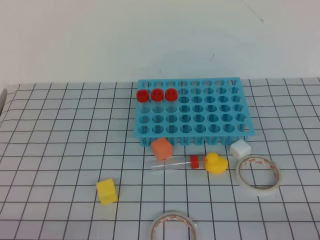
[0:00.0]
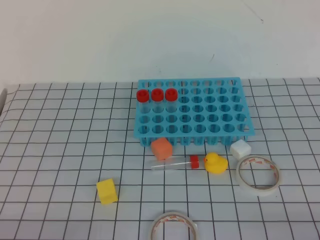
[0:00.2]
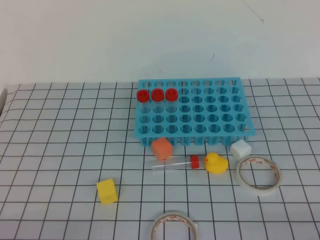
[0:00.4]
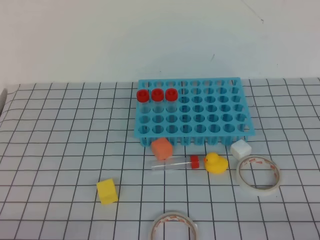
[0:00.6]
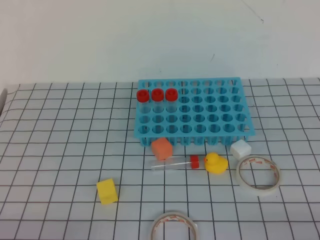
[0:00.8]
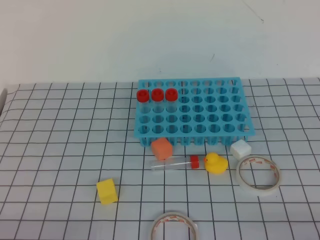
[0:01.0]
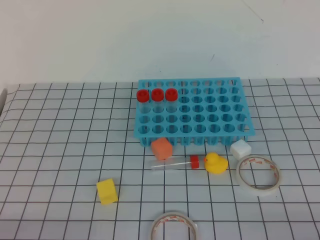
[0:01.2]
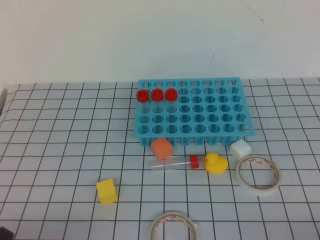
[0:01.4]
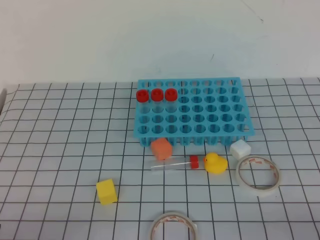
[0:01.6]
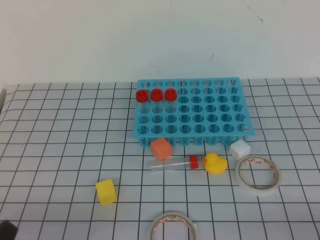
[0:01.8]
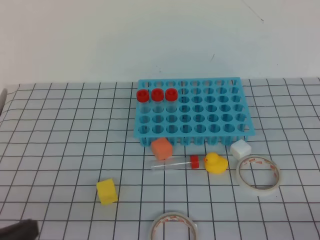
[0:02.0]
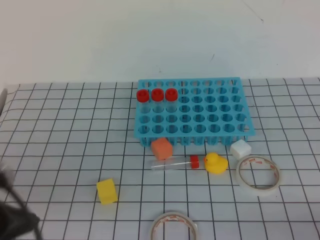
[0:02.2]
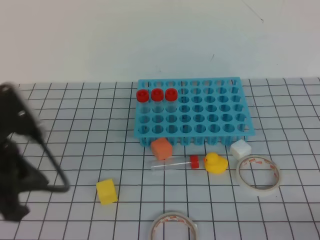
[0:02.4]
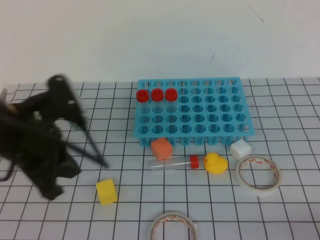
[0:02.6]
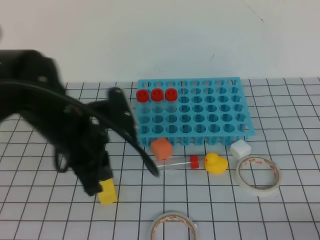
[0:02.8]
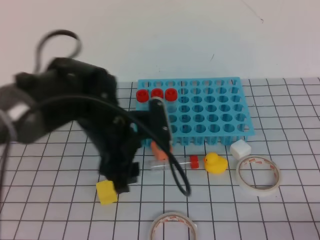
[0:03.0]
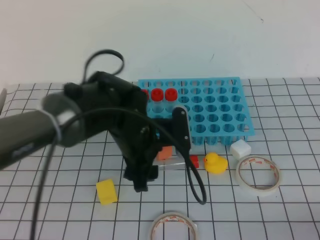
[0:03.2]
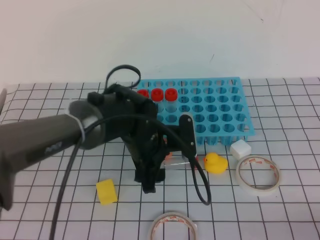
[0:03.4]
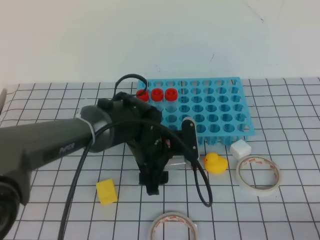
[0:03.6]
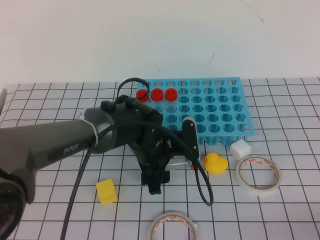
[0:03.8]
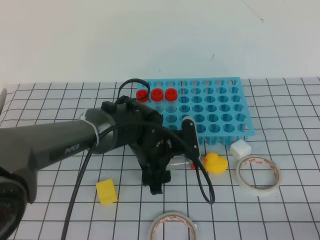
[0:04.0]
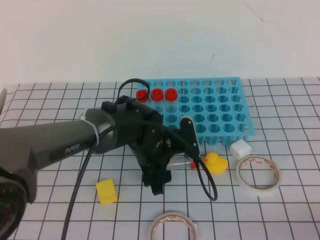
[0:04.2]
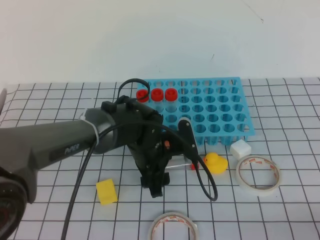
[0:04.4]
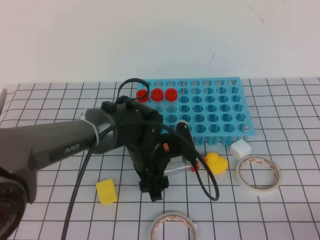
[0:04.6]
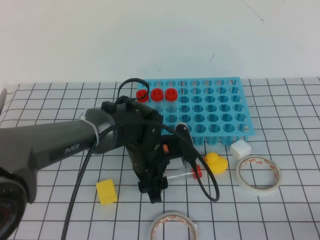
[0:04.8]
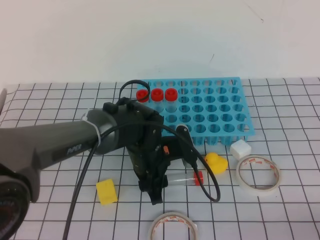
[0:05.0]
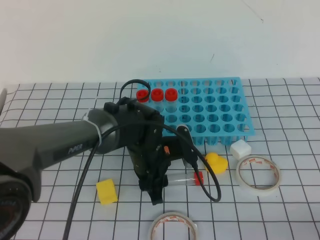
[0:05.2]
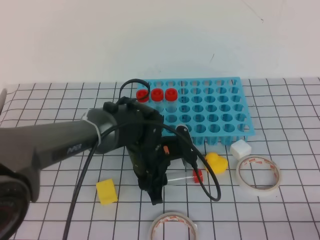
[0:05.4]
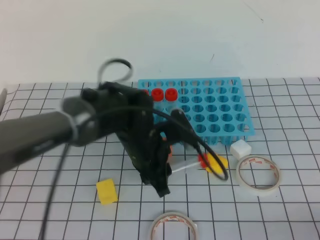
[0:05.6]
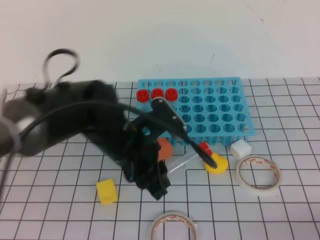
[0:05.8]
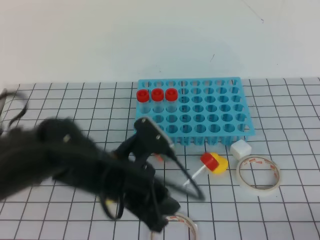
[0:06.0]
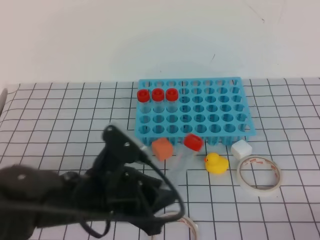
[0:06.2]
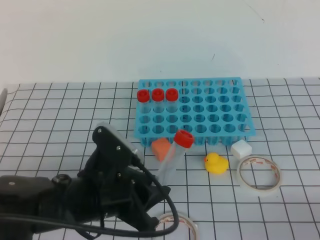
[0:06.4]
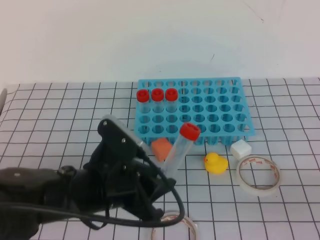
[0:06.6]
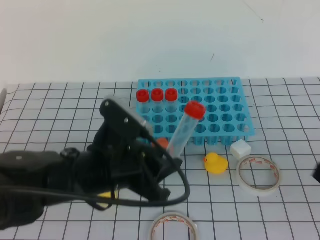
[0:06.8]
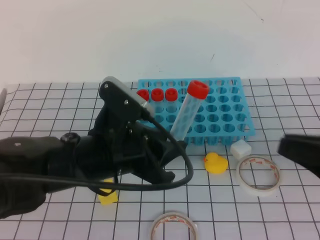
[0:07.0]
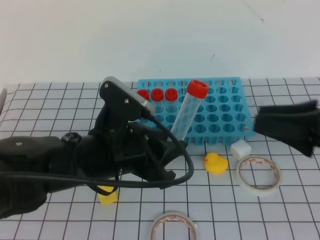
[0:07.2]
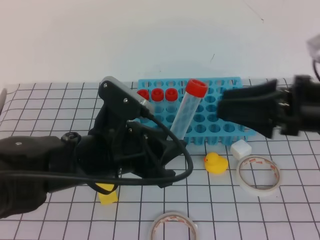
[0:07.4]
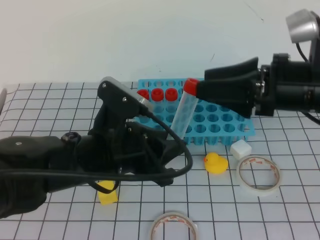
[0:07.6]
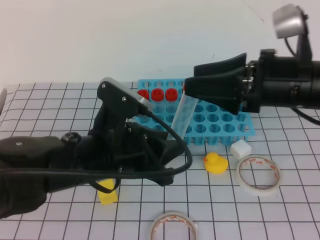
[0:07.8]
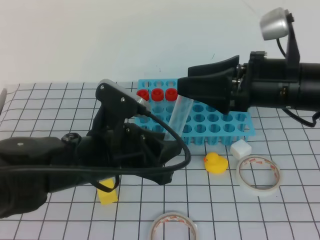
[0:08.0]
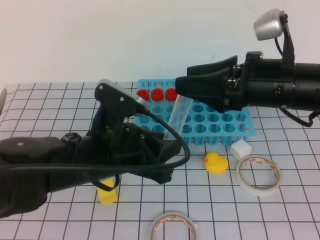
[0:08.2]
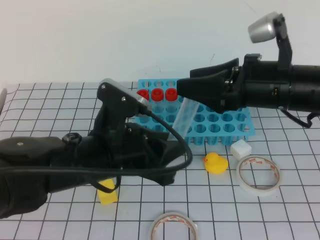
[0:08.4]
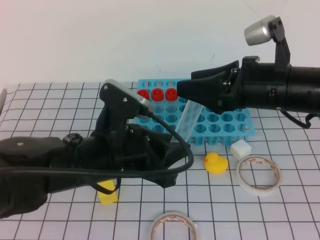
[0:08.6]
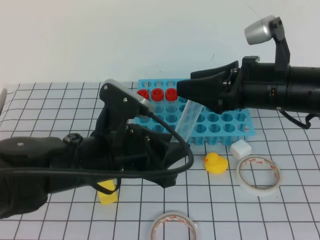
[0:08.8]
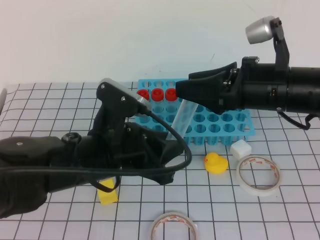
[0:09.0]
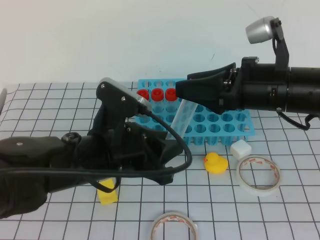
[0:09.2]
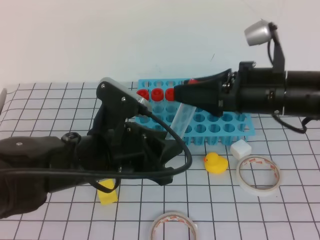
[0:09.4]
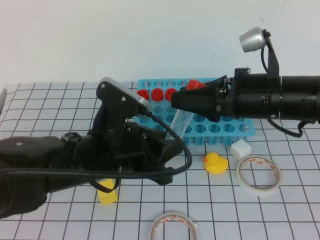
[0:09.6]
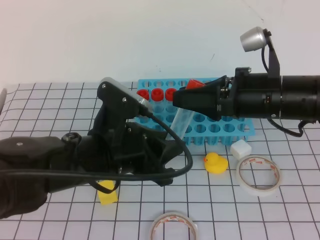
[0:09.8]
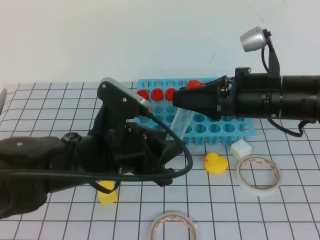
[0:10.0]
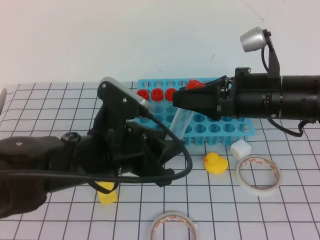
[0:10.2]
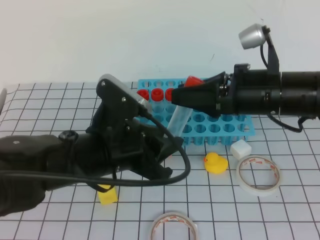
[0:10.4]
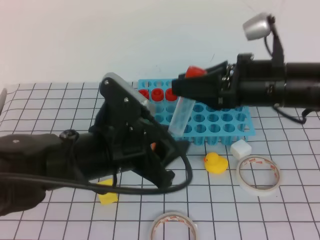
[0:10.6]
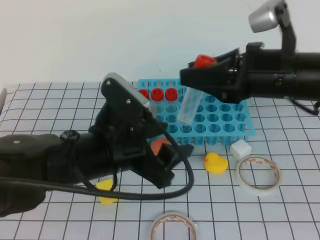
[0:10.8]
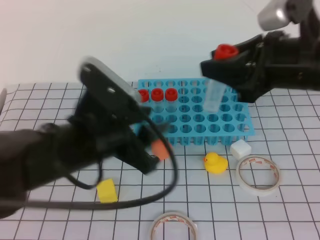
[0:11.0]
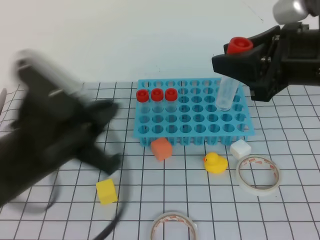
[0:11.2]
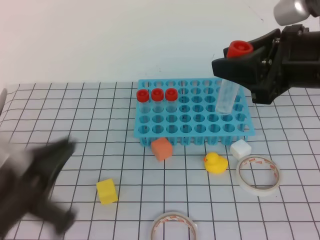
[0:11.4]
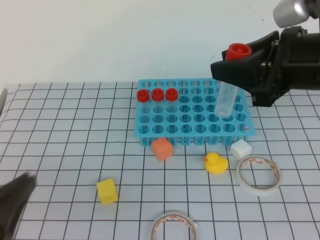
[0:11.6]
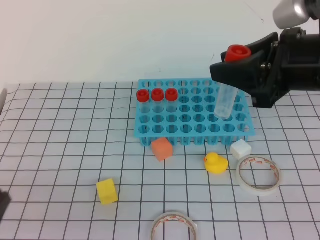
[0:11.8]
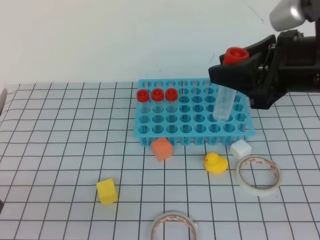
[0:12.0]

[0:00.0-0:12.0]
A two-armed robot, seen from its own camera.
0:01.6 to 0:03.0: The left gripper is displaced forward and to the right by some 25 cm, and opens.
0:03.0 to 0:04.4: The left gripper is displaced downward, to the right and forward by roughly 15 cm, and opens.
0:04.4 to 0:06.0: The left gripper is displaced backward and upward by roughly 10 cm, and closes its fingers.
0:06.0 to 0:07.6: The left gripper shifts by some 5 cm, while the right gripper moves forward, upward and to the left, roughly 30 cm, and opens up.
0:07.6 to 0:09.0: The right gripper shifts by roughly 5 cm.
0:09.0 to 0:10.4: The right gripper closes its fingers.
0:10.4 to 0:12.0: The right gripper moves upward, about 10 cm; the left gripper shifts approximately 25 cm backward and to the left, and closes up.

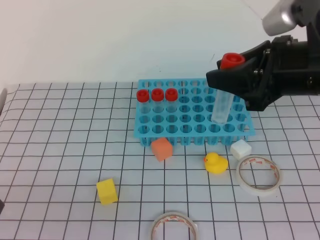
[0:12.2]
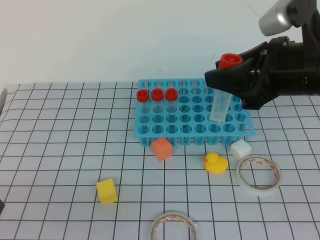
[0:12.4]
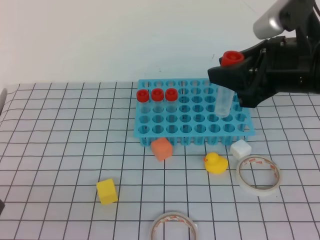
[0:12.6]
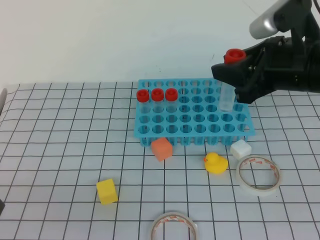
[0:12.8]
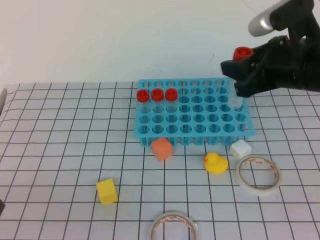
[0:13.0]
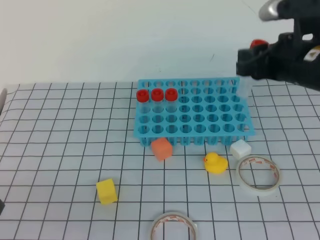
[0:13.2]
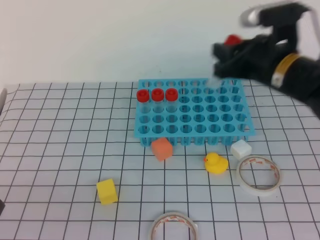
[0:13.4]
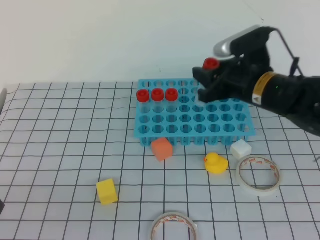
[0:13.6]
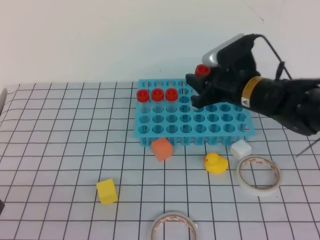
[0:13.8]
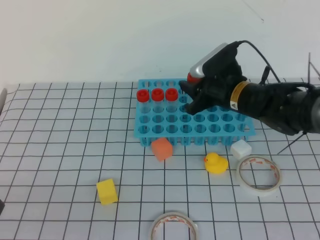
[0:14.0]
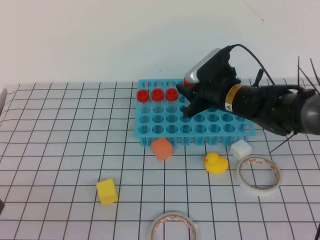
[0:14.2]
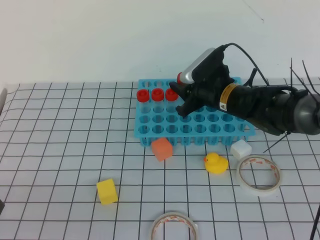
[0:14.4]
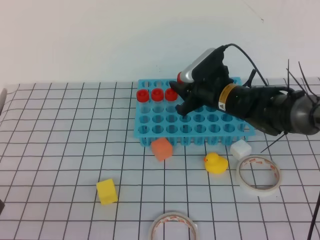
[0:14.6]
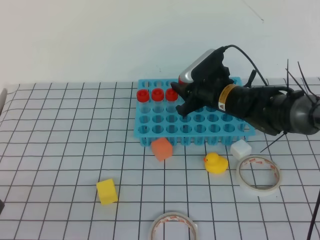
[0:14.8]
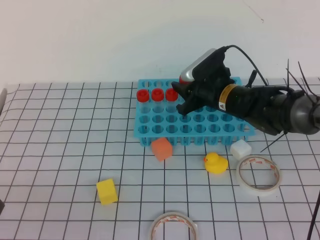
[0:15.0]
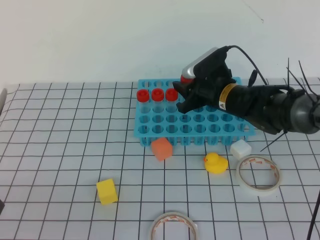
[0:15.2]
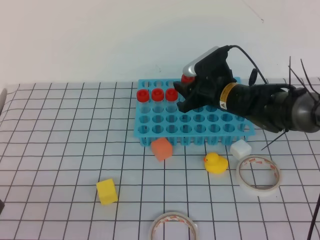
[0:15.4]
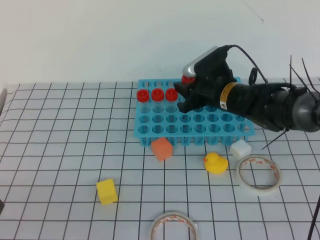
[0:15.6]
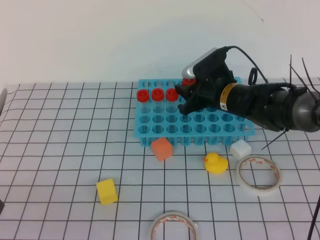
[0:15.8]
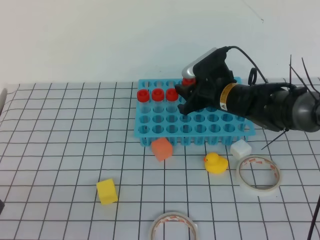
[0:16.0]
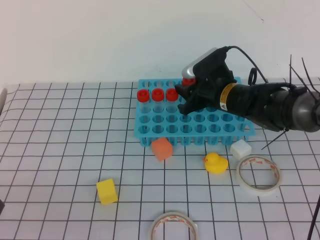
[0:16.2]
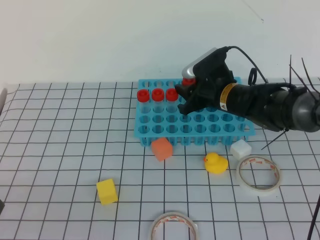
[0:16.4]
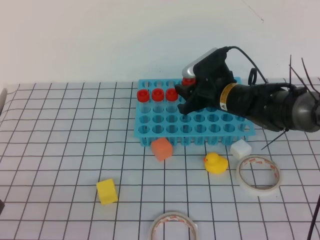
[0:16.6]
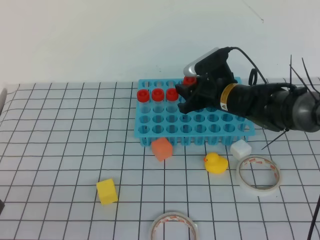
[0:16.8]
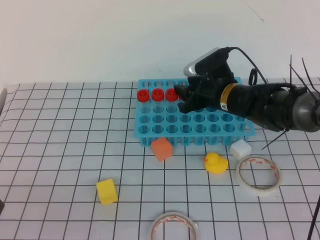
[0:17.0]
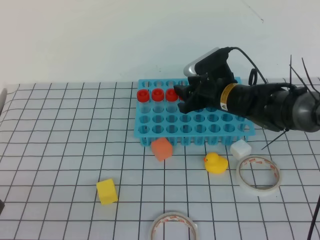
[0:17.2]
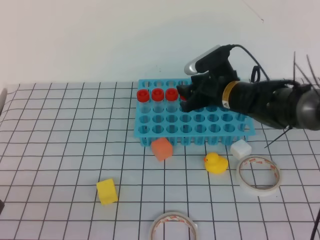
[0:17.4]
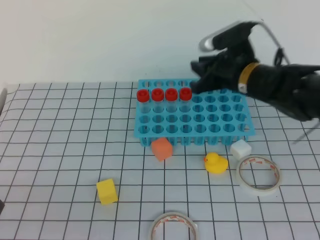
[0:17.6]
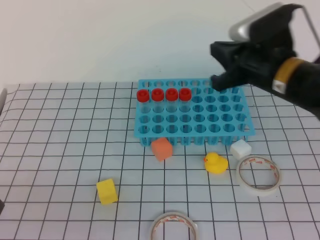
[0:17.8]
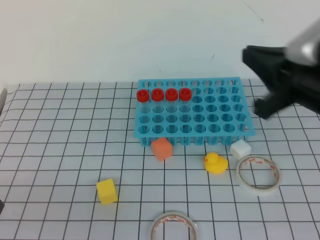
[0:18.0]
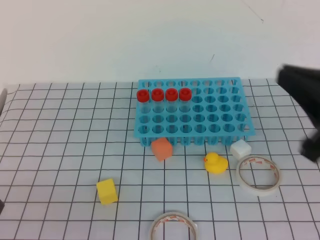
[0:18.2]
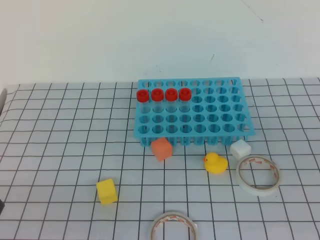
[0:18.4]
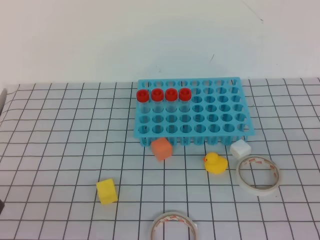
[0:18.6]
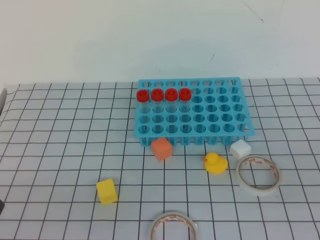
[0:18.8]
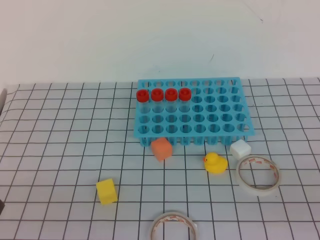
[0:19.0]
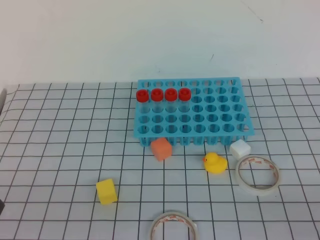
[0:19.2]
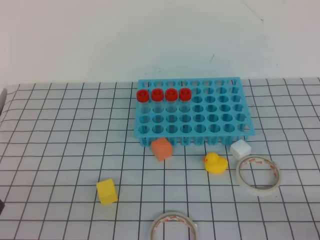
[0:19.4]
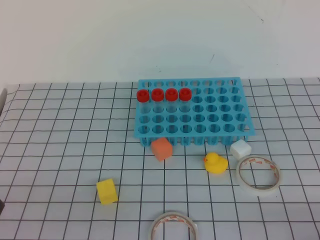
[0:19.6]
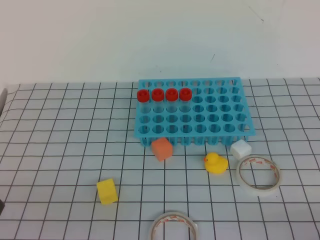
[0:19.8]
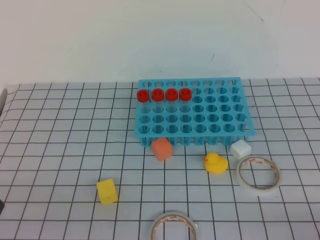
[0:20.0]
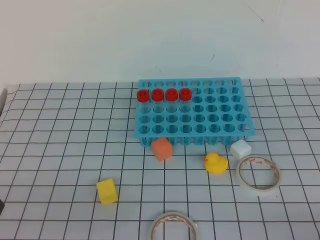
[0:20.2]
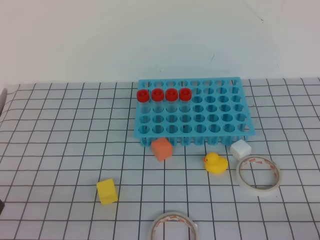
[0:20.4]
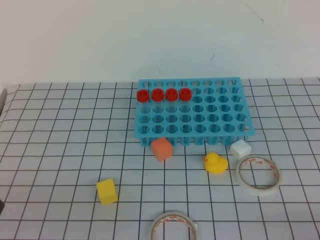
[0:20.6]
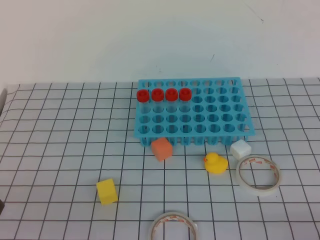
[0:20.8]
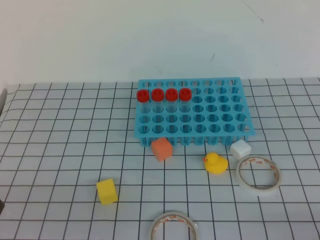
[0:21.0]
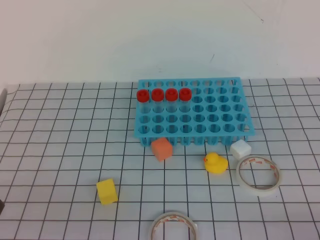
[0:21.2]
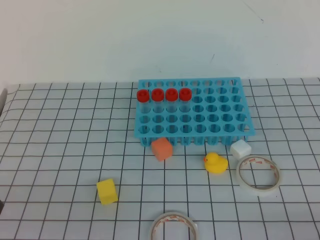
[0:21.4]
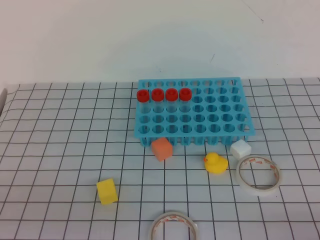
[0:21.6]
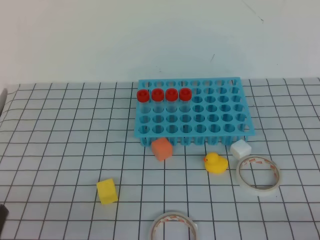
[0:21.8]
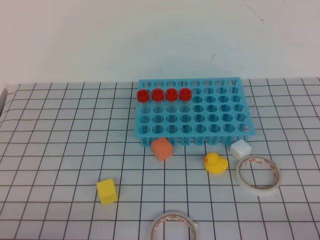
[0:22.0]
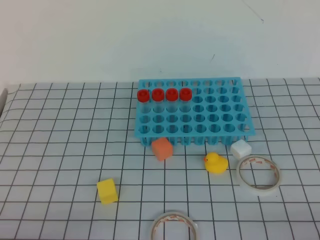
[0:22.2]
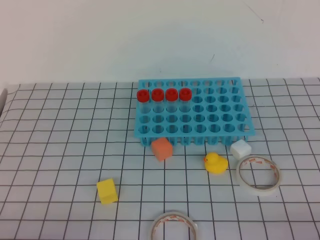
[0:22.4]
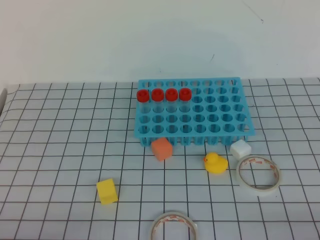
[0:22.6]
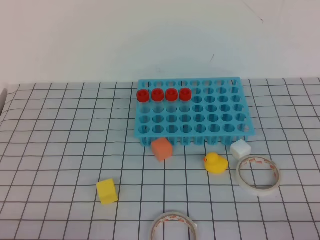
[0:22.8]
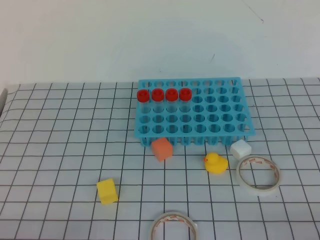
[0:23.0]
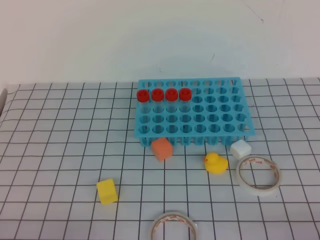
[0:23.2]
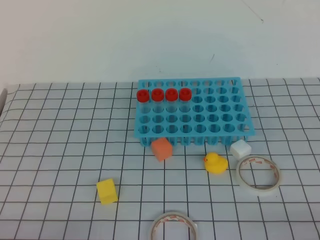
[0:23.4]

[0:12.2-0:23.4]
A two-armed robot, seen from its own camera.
0:12.2 to 0:13.8: The right gripper is displaced downward and forward by about 15 cm.
0:13.8 to 0:15.4: The right gripper heads downward and forward, covering some 10 cm.
0:15.4 to 0:17.0: Both grippers stay put.
0:17.0 to 0:18.6: The right gripper travels backward, to the right and upward by roughly 40 cm, and closes its fingers.
0:18.6 to 0:20.2: The right gripper heads downward, to the right and backward, covering about 20 cm.
